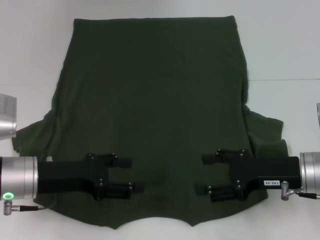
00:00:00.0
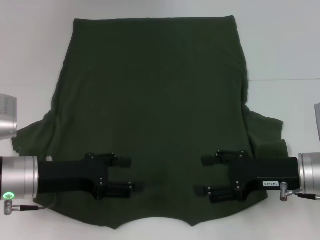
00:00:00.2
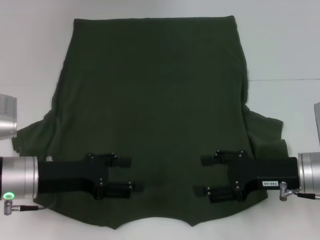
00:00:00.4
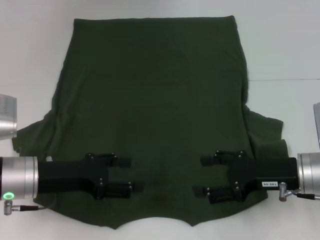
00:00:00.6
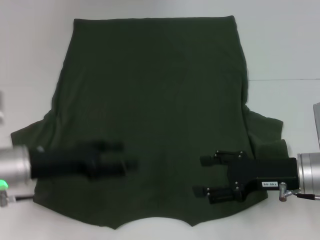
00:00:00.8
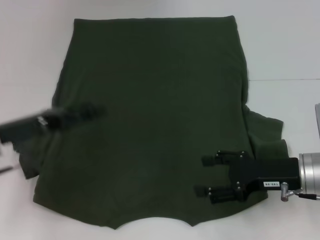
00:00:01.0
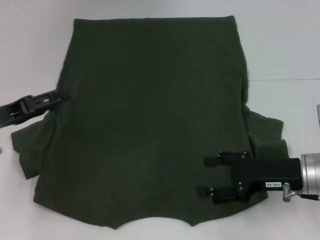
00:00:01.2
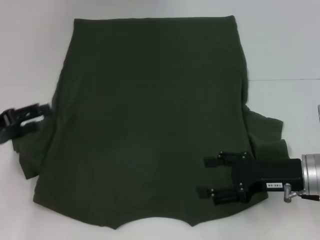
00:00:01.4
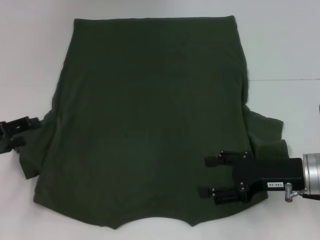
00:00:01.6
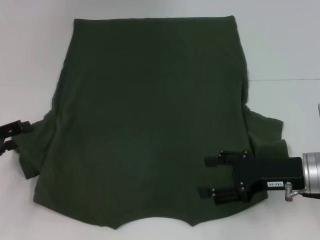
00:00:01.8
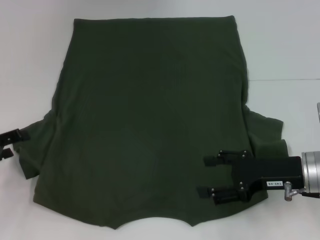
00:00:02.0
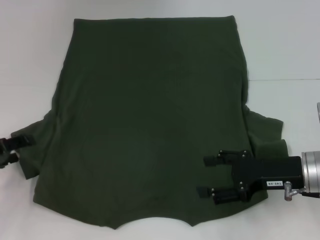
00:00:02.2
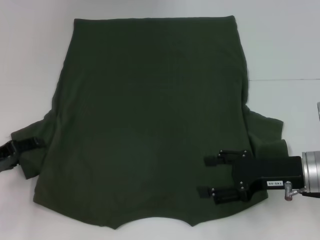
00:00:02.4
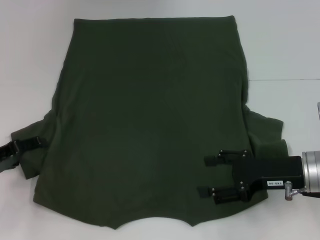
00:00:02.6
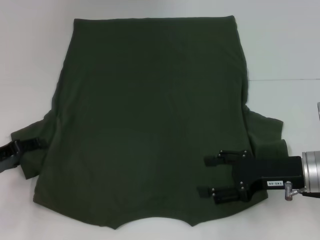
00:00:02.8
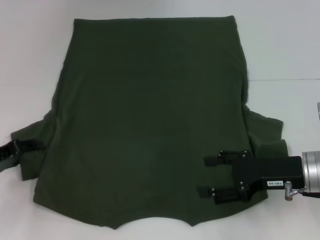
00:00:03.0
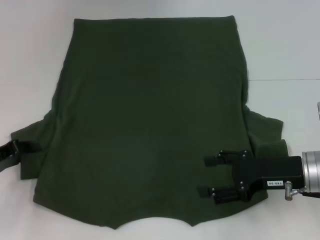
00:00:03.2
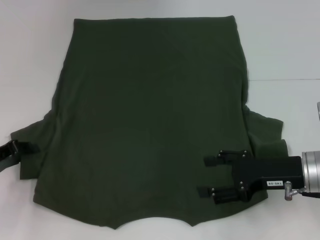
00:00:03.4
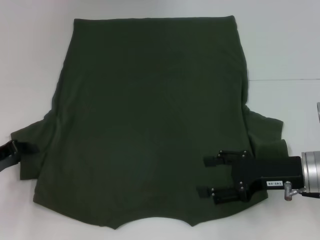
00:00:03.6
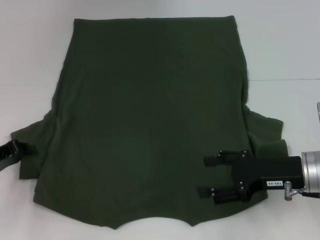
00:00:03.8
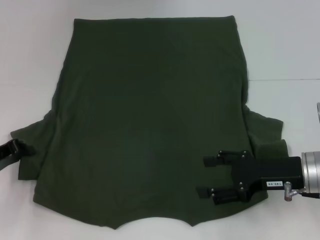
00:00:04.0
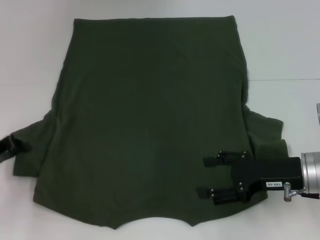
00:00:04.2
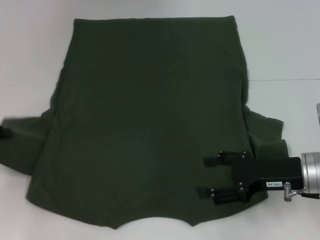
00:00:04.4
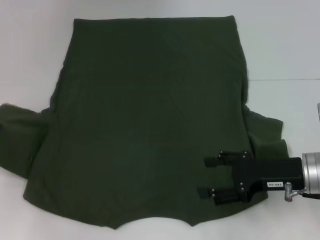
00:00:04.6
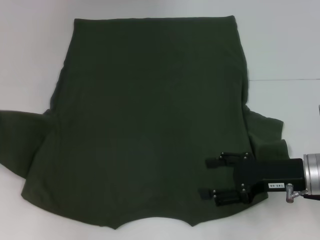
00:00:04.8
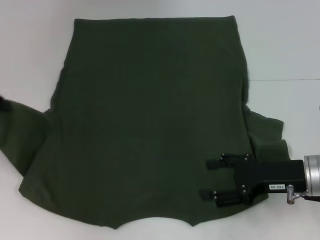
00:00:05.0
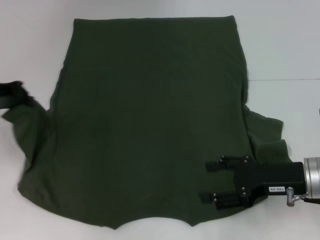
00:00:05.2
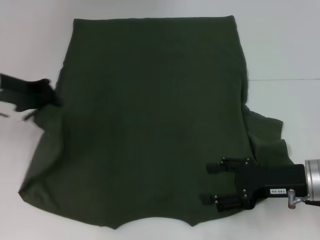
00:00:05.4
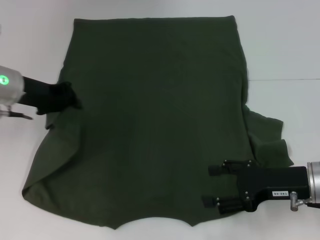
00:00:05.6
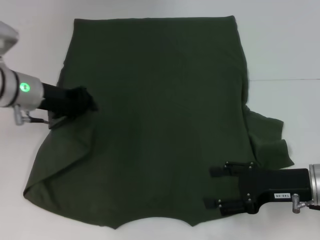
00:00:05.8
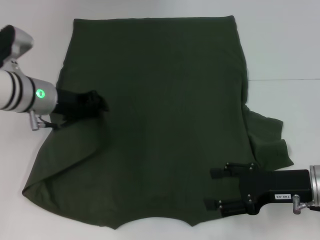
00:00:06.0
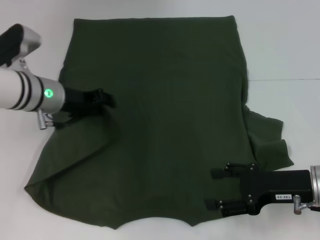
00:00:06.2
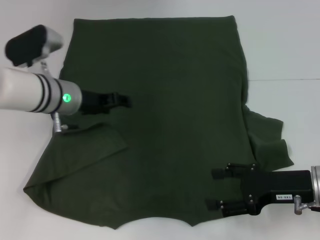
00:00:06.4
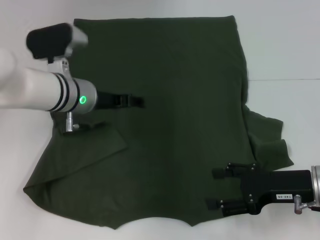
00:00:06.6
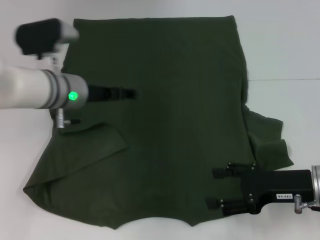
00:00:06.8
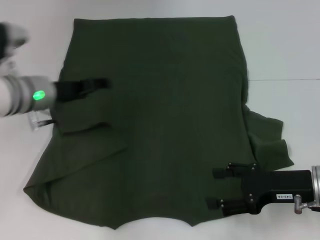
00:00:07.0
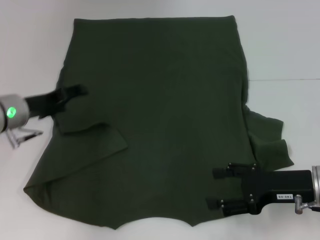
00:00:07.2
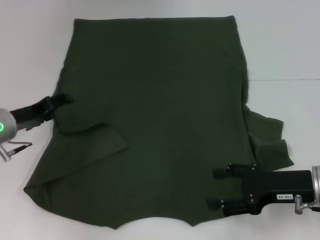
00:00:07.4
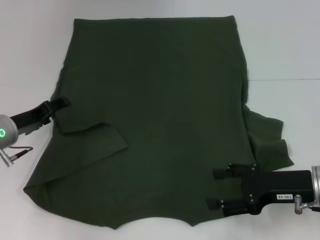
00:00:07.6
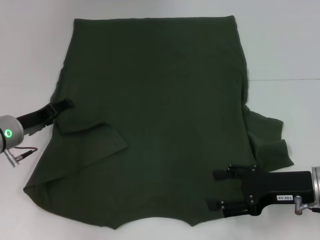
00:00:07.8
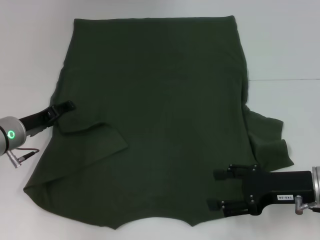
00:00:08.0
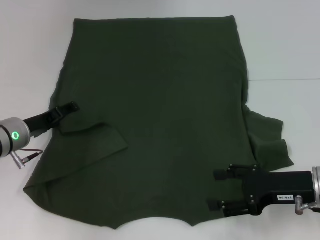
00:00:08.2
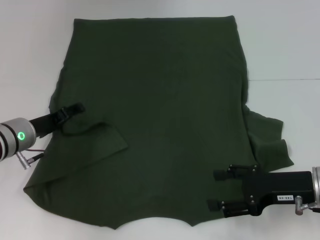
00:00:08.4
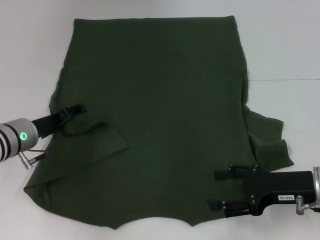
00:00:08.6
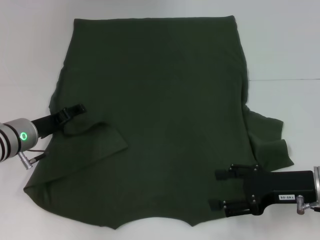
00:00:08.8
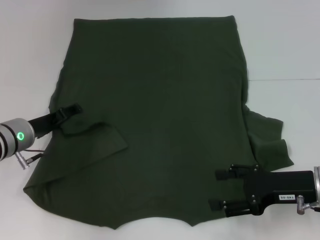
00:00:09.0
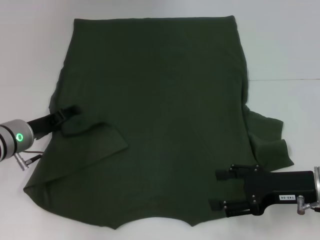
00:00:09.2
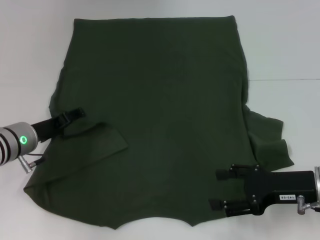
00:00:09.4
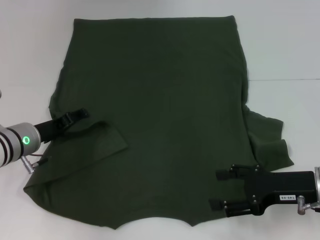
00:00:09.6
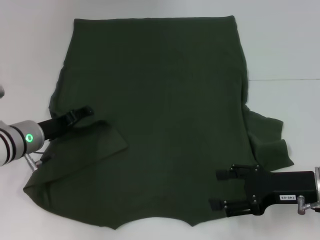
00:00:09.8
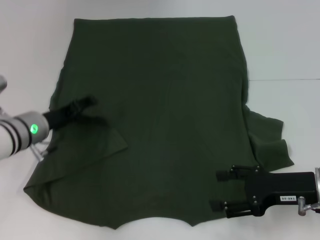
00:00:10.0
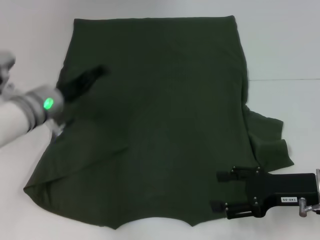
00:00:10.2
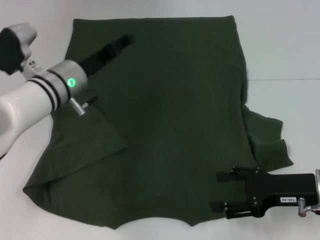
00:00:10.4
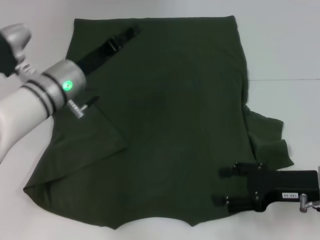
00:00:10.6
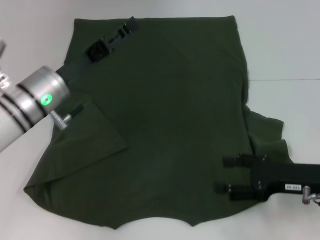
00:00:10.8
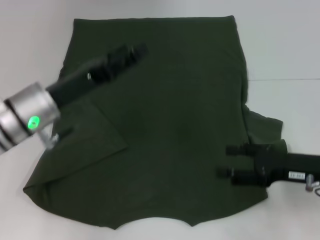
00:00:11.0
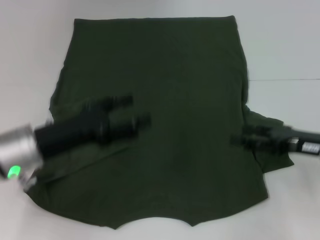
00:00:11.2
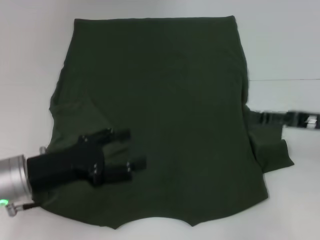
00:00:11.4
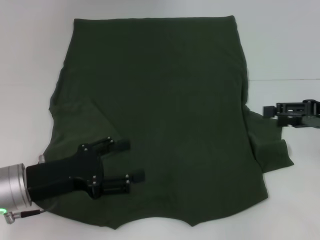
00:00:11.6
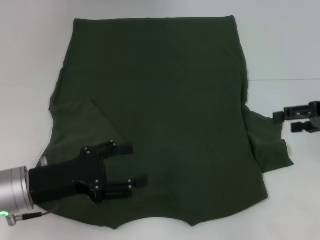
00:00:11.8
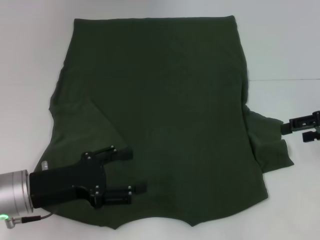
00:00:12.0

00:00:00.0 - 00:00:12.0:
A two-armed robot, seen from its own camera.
Step, 00:00:00.0 - 00:00:11.0: Fold the bottom left sleeve with your left hand.
00:00:00.0 - 00:00:01.6: The left gripper travels to the left by about 10 cm.
00:00:01.6 - 00:00:03.0: The grippers stay close to where they were, moving slightly.
00:00:03.0 - 00:00:04.4: The left gripper closes up.
00:00:04.4 - 00:00:06.0: The left gripper is displaced to the right and forward by approximately 20 cm.
00:00:06.0 - 00:00:07.6: The left gripper goes approximately 10 cm downward and to the left, and opens its fingers.
00:00:07.6 - 00:00:09.0: The grippers move only a little.
00:00:09.0 - 00:00:10.4: The left gripper heads to the right and upward, covering some 10 cm.
00:00:10.4 - 00:00:12.0: The left gripper goes approximately 15 cm backward and to the left. The right gripper travels upward, to the right and forward by roughly 15 cm.

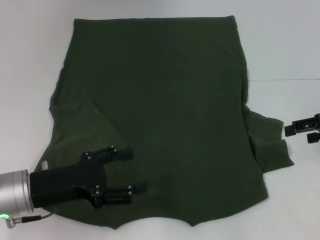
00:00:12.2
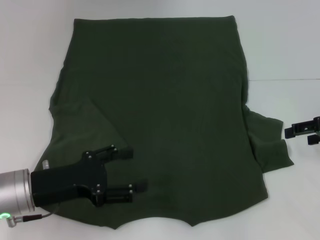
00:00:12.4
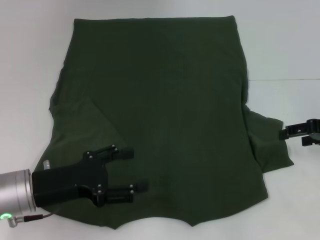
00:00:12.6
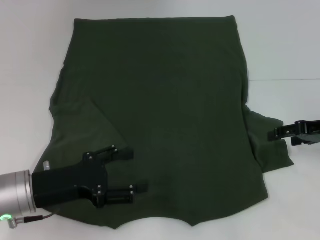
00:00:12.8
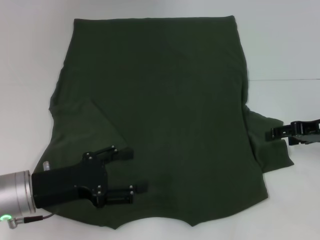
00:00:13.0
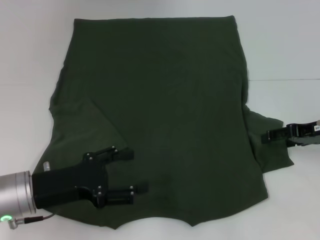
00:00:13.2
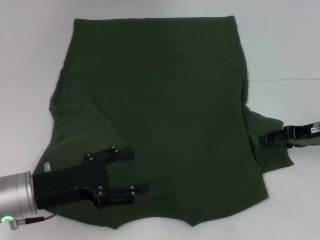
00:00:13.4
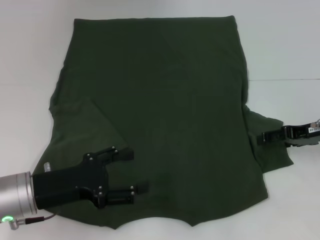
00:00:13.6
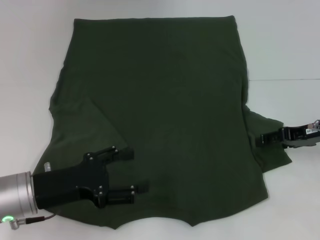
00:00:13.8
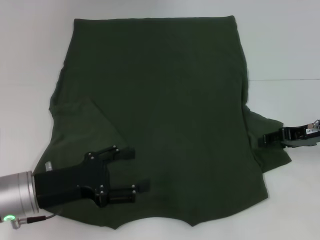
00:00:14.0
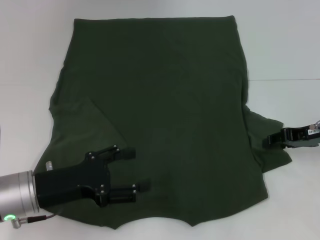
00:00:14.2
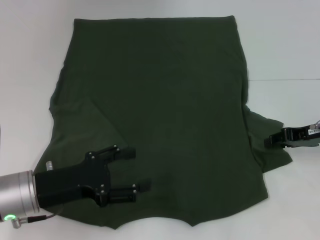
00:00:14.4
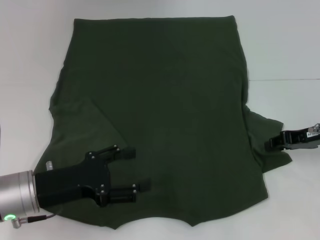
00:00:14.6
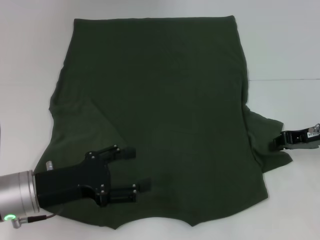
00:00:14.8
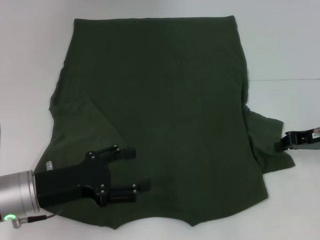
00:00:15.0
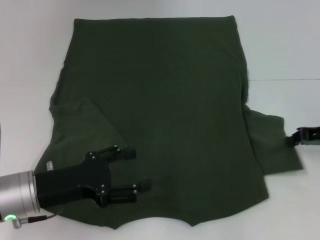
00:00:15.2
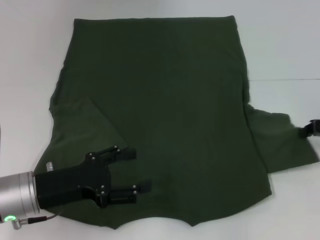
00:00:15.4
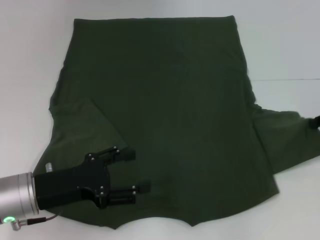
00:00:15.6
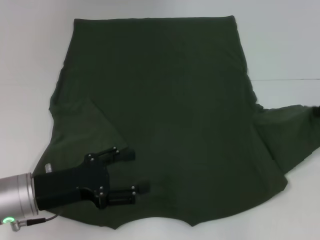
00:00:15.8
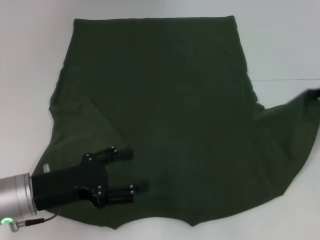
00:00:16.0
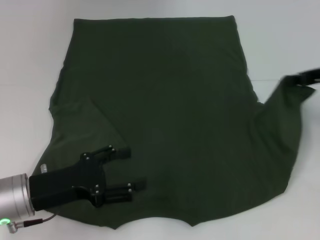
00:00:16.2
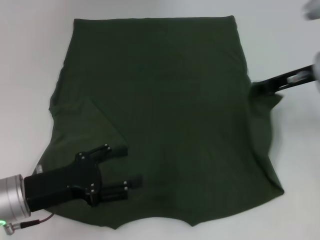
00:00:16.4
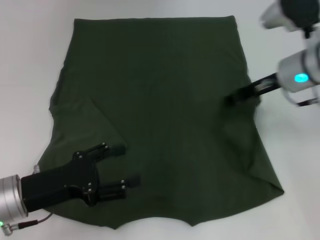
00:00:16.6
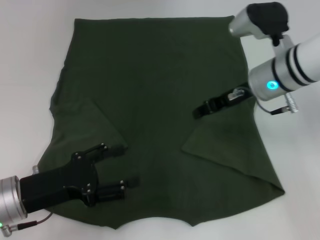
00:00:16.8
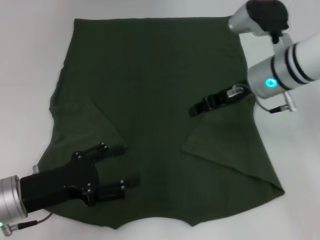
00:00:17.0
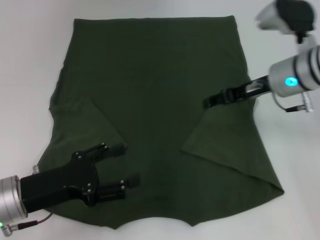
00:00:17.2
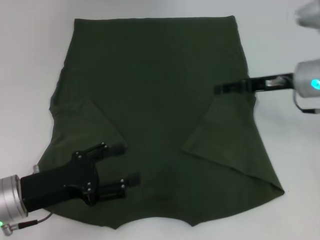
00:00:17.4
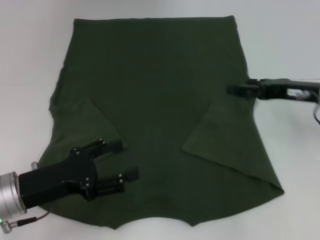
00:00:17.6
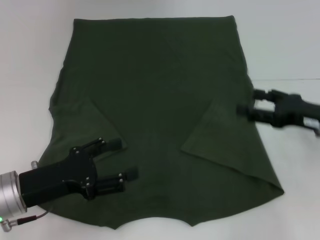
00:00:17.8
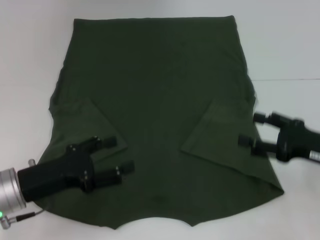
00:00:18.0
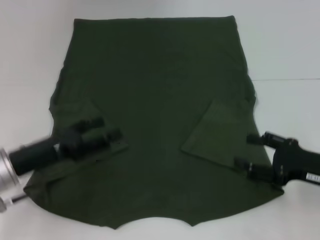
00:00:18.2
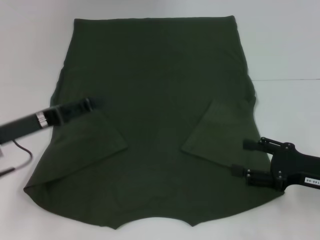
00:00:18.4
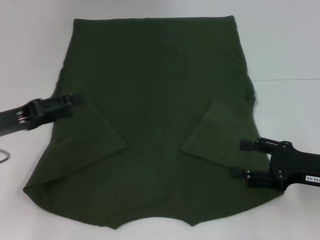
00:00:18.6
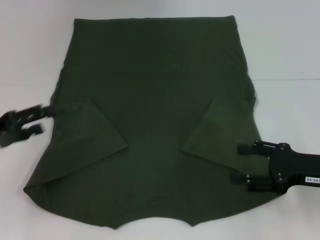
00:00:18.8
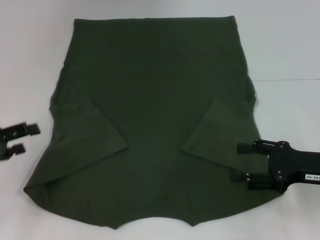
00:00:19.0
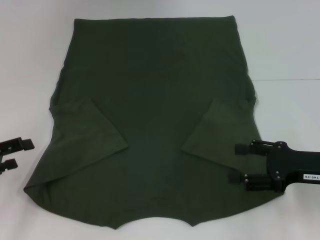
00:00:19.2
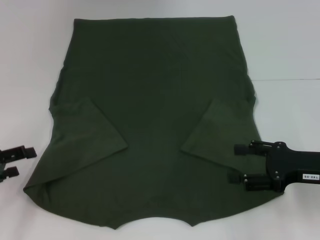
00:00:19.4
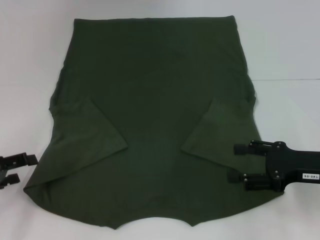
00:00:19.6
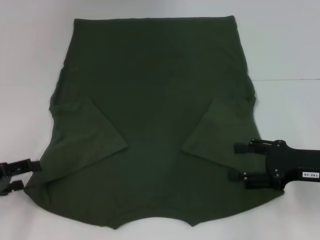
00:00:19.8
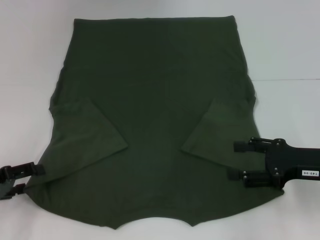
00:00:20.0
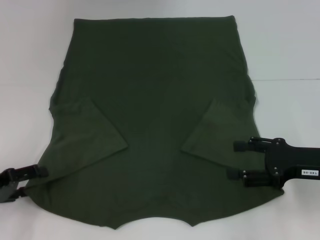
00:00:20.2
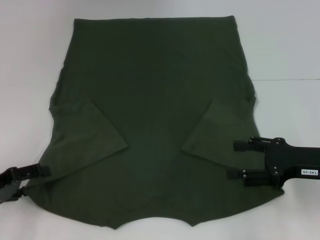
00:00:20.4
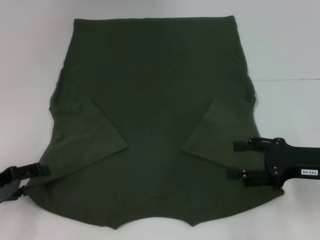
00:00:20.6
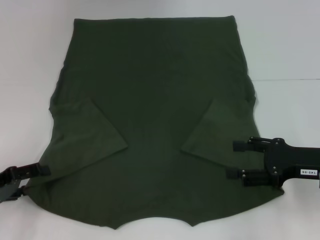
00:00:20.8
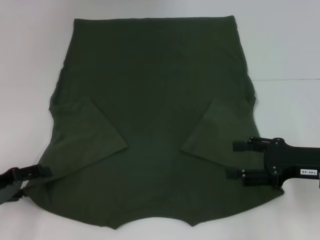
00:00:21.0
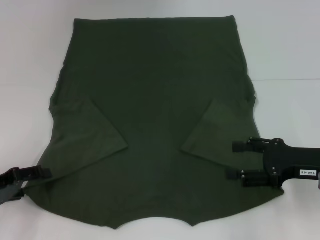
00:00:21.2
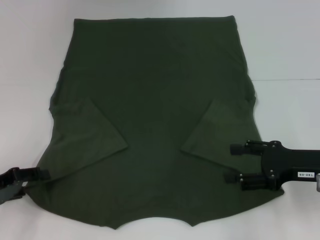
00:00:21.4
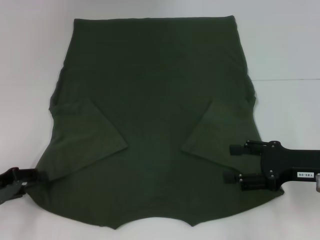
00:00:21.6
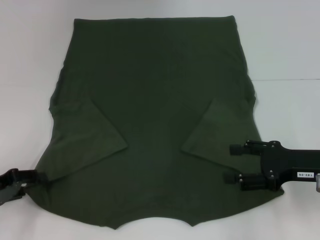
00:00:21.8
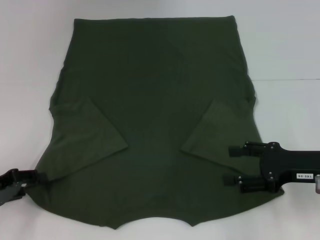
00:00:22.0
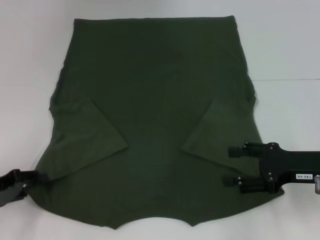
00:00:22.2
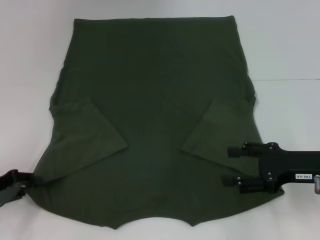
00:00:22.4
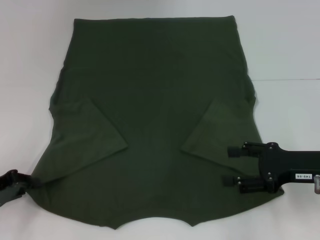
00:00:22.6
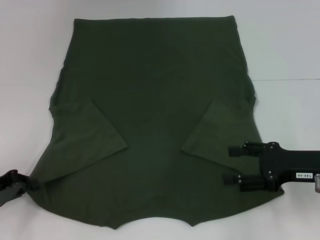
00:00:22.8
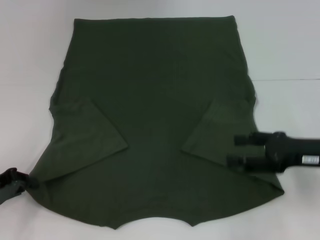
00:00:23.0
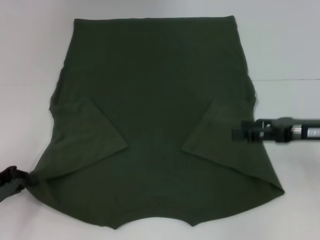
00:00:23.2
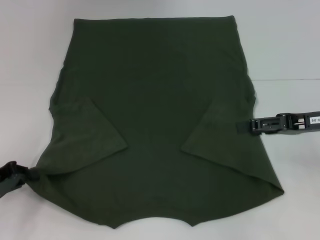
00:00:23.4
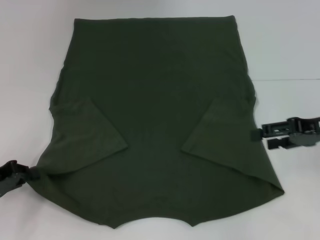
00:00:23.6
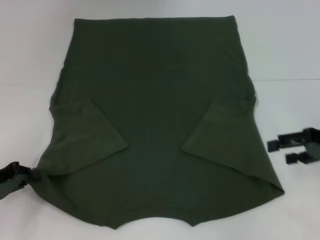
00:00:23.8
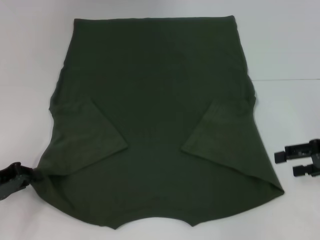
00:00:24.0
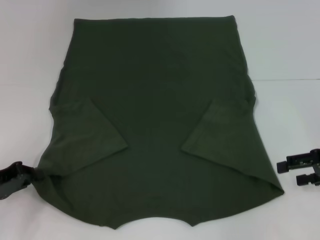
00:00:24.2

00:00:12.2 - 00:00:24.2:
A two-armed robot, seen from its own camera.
Step, 00:00:12.2 - 00:00:17.4: Fold the bottom right sleeve with your right hand.
Step, 00:00:17.6 - 00:00:22.4: Grab the bottom left corner with your left hand.
00:00:12.2 - 00:00:13.8: The right gripper ends up about 5 cm from where it was.
00:00:13.8 - 00:00:15.2: The right gripper closes up.
00:00:15.2 - 00:00:16.6: The right gripper is displaced to the left, upward and forward by about 15 cm.
00:00:16.6 - 00:00:18.2: The right gripper goes roughly 20 cm backward, downward and to the right, and opens up.
00:00:18.2 - 00:00:19.8: The left gripper heads to the left, covering some 10 cm.
00:00:19.8 - 00:00:21.2: The grippers stay close to where they were, moving slightly.
00:00:22.6 - 00:00:24.2: The right gripper travels to the right by roughly 5 cm.
